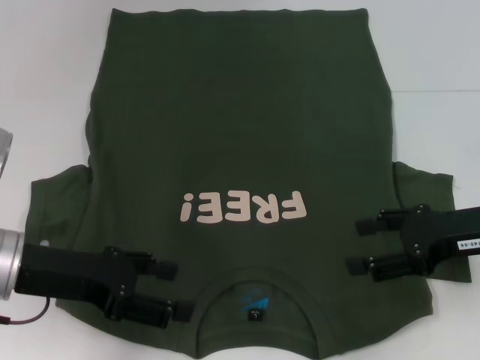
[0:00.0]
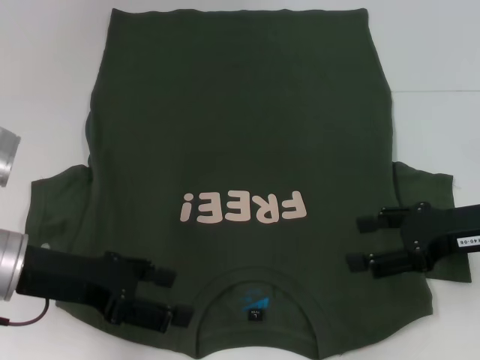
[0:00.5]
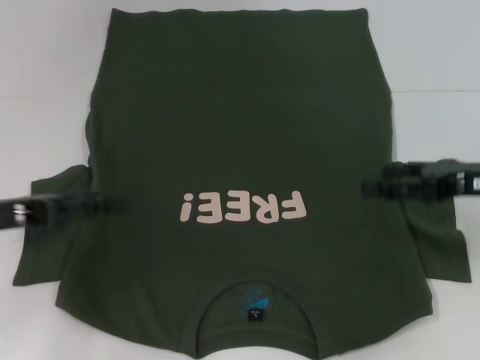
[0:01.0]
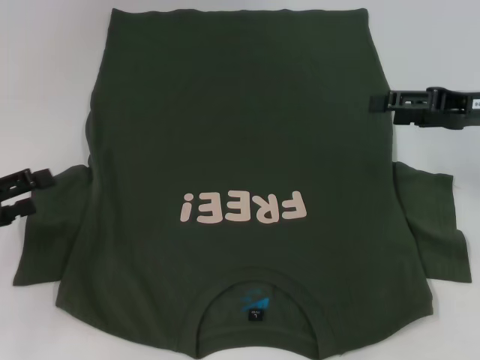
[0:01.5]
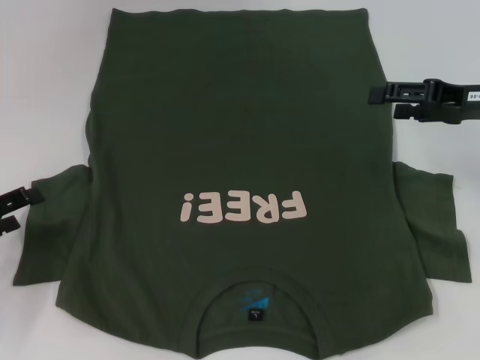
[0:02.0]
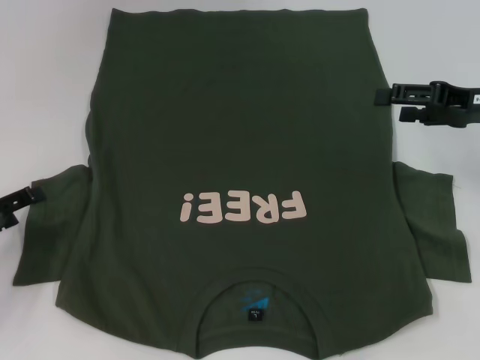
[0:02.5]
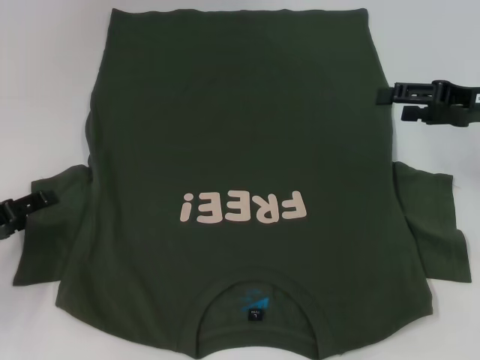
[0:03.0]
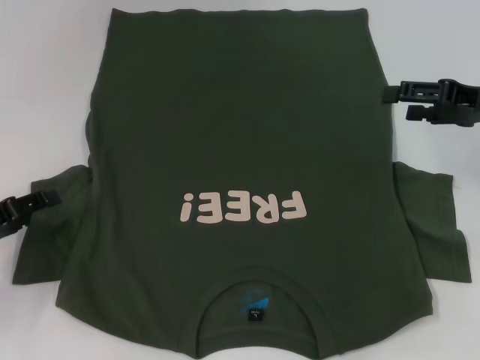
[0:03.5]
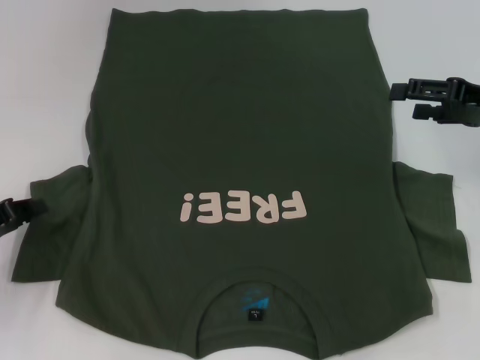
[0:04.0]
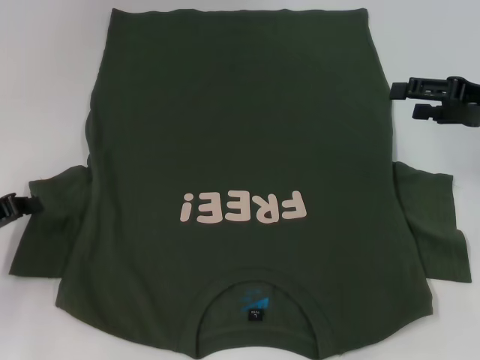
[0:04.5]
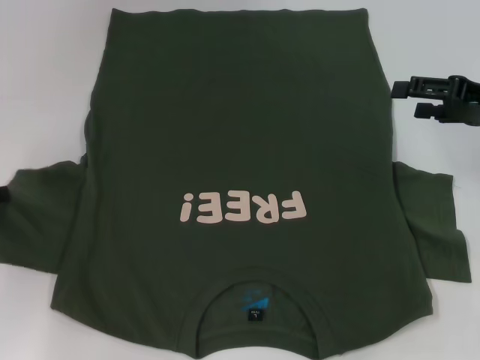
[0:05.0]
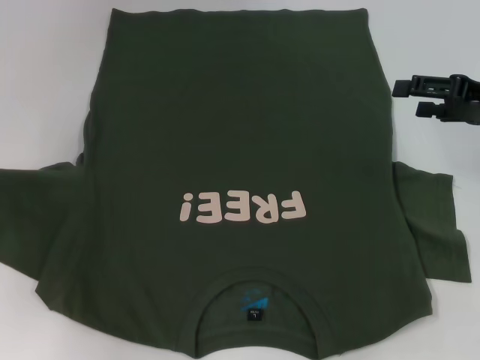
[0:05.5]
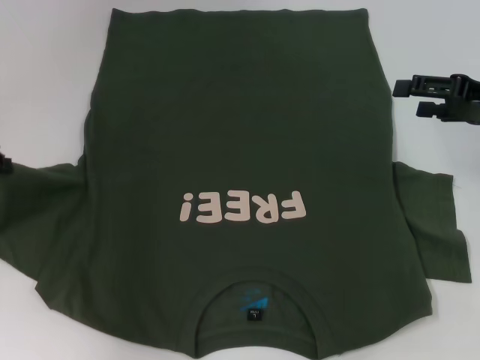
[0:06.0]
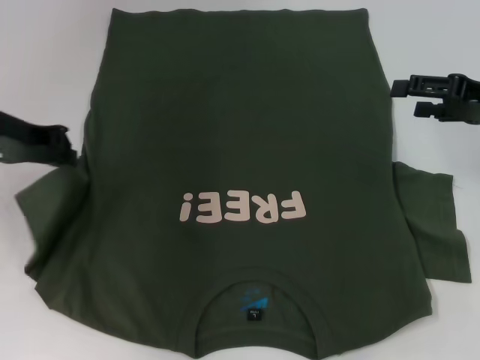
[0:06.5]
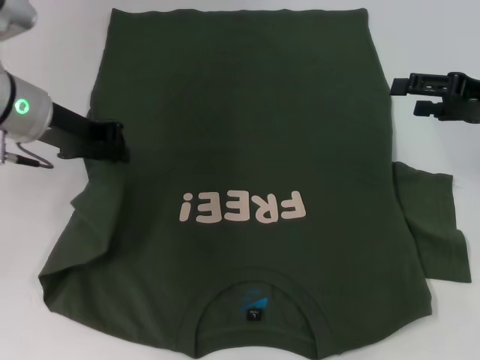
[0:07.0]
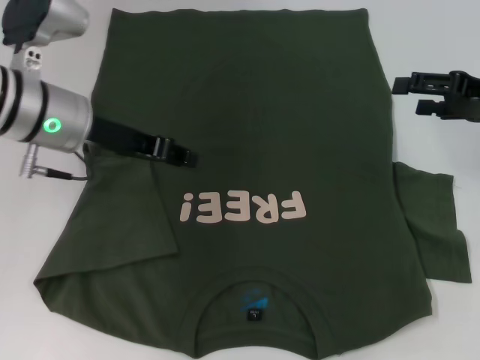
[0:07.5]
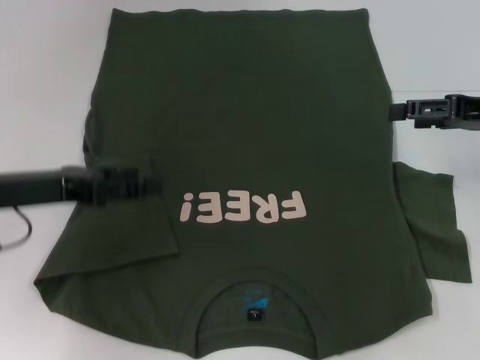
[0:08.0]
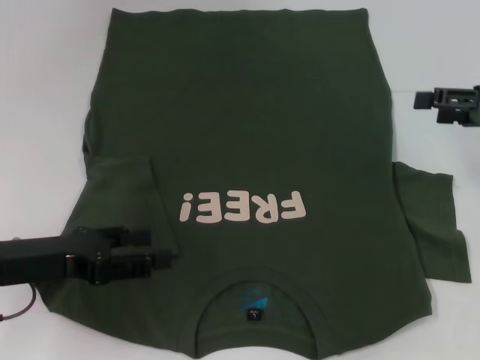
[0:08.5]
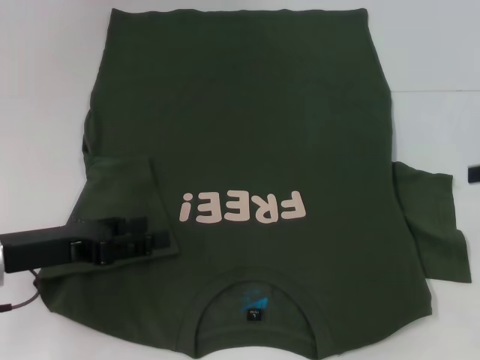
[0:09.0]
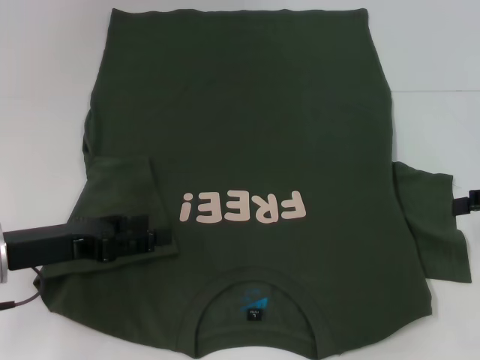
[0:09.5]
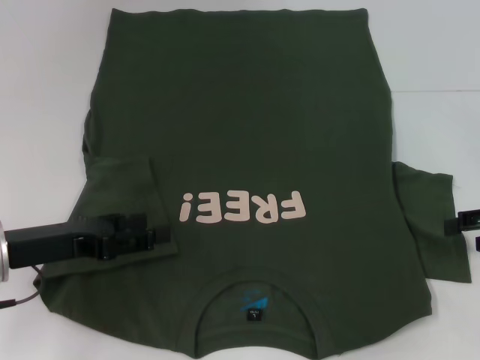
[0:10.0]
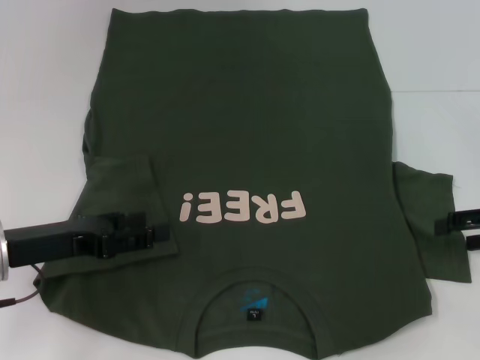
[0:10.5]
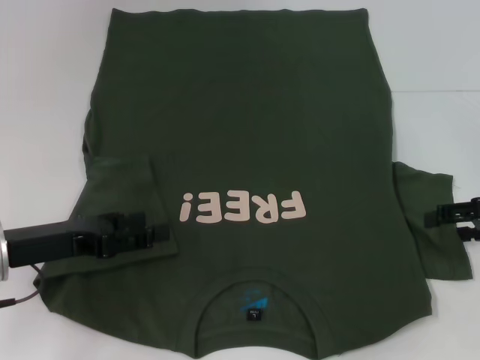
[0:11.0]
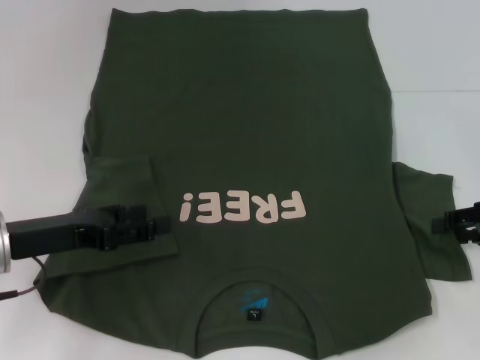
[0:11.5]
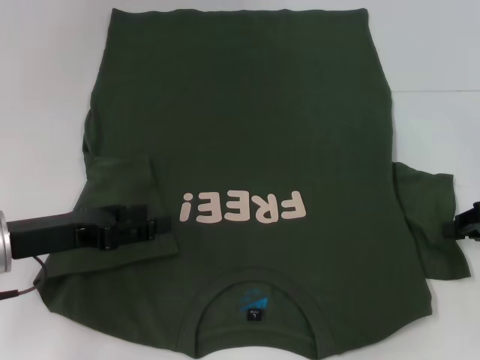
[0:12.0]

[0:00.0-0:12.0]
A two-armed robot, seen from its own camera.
Step, 0:00.0 to 0:07.0: Fold the bottom left sleeve with your left hand.
0:00.0 to 0:02.0: The right gripper heads forward, covering about 10 cm; the left gripper moves to the left, about 10 cm.
0:02.0 to 0:04.0: The left gripper closes its fingers.
0:04.0 to 0:06.0: The left gripper shifts some 10 cm upward and forward, and closes its fingers.
0:06.0 to 0:08.0: The left gripper shifts about 5 cm to the right, and opens.
0:08.0 to 0:10.0: The right gripper goes about 10 cm backward, downward and to the right; the left gripper shifts by roughly 5 cm.

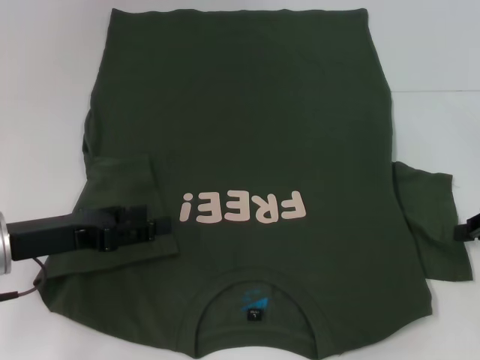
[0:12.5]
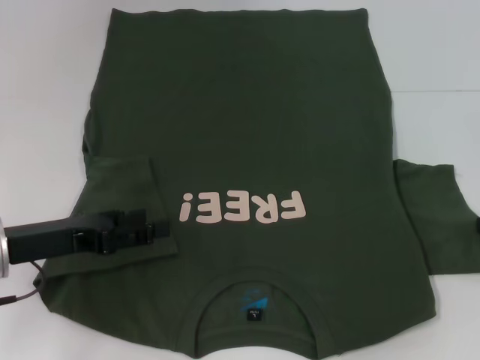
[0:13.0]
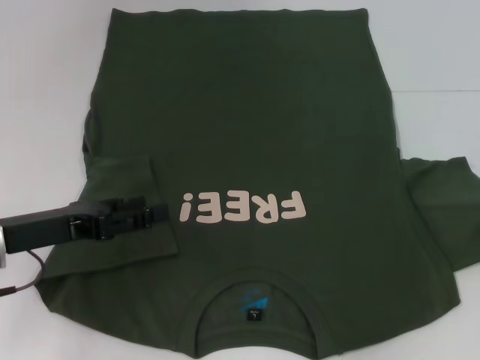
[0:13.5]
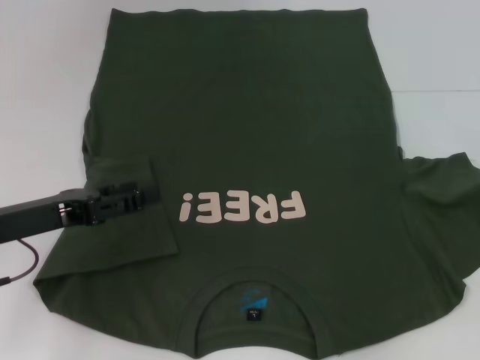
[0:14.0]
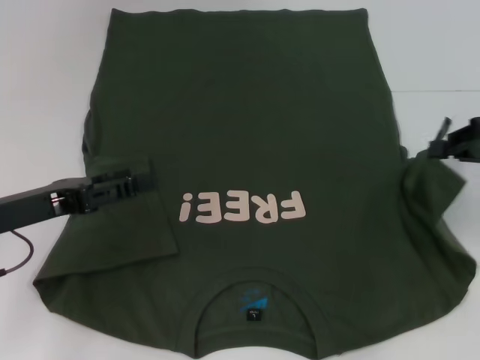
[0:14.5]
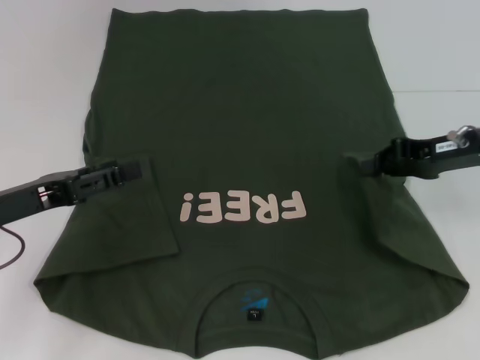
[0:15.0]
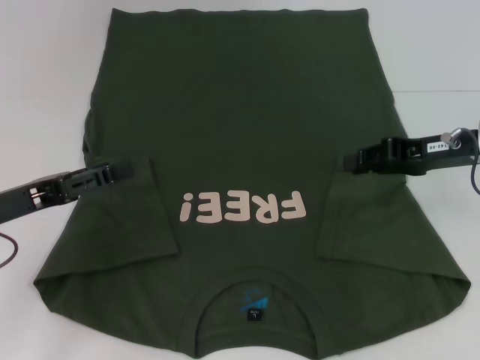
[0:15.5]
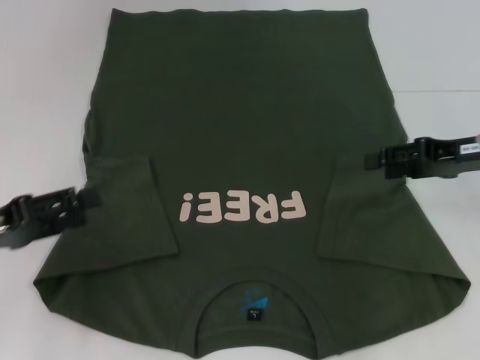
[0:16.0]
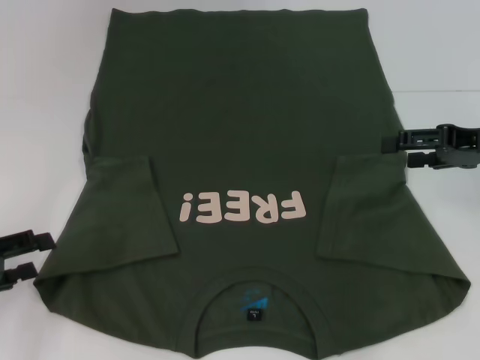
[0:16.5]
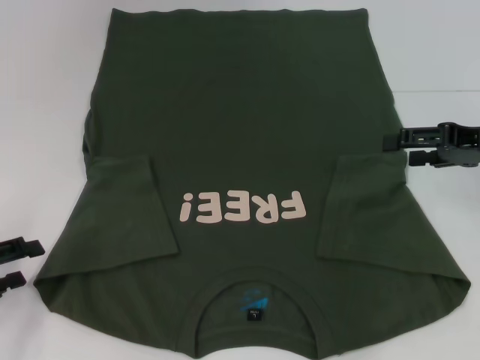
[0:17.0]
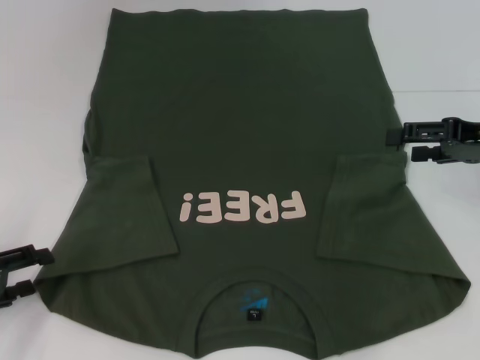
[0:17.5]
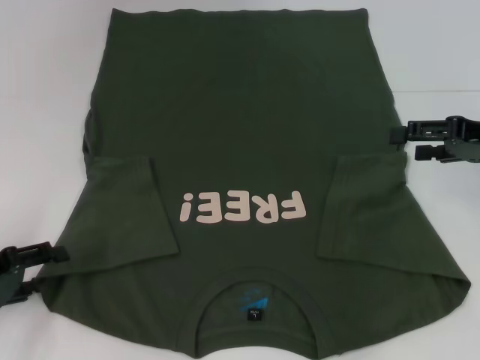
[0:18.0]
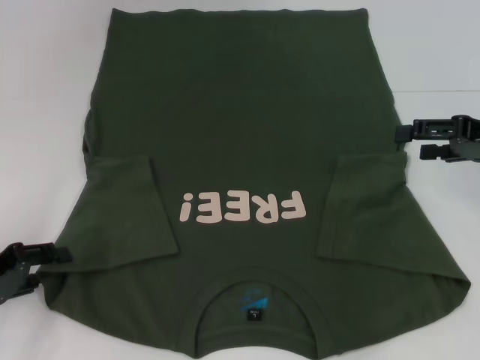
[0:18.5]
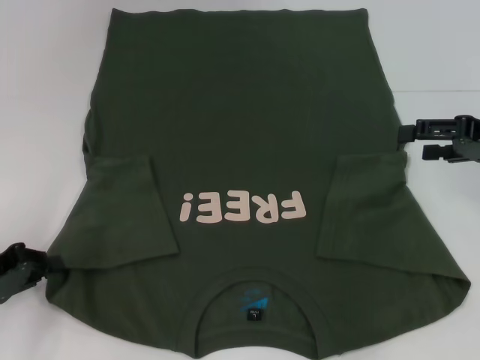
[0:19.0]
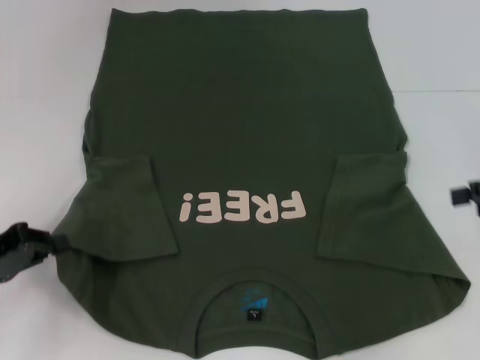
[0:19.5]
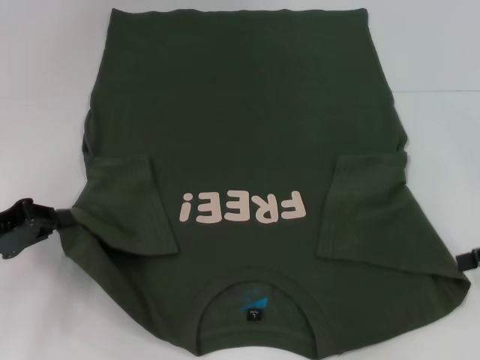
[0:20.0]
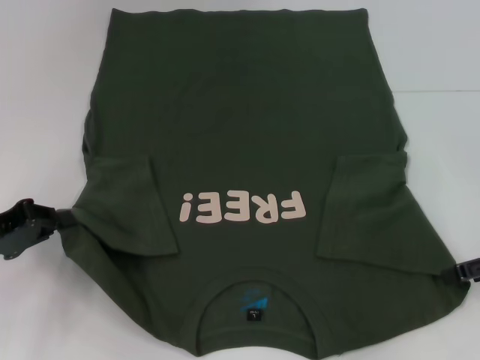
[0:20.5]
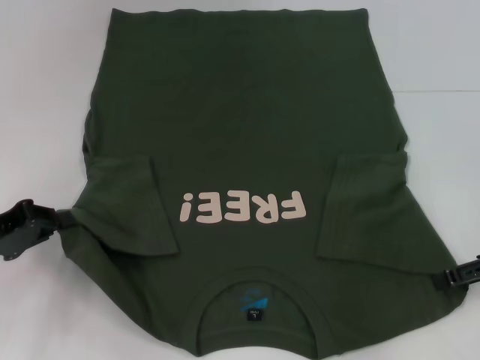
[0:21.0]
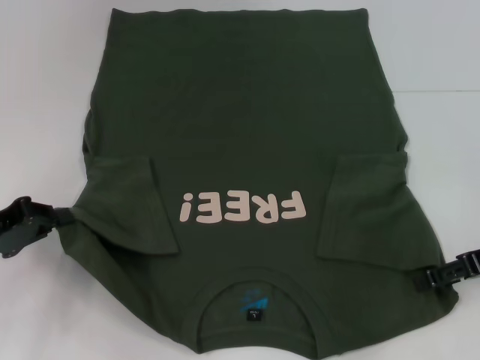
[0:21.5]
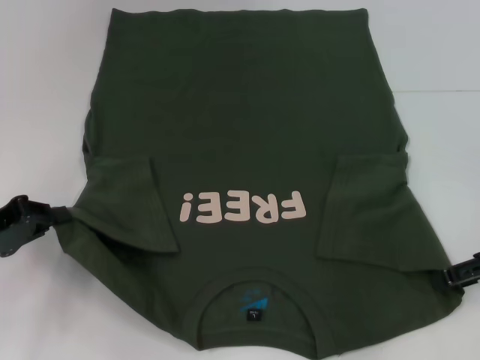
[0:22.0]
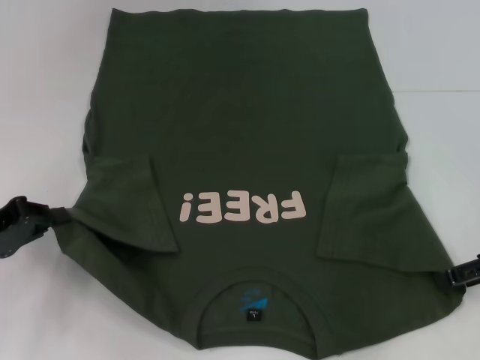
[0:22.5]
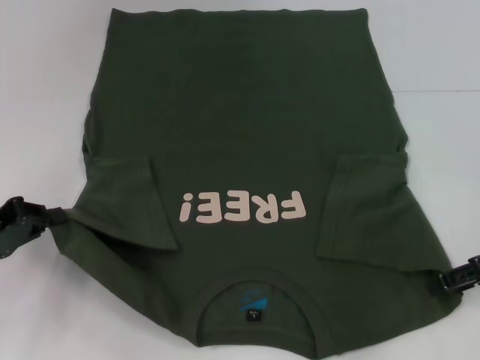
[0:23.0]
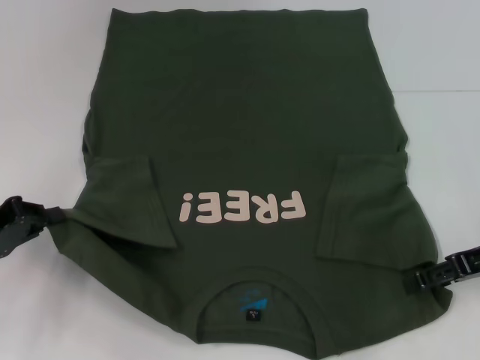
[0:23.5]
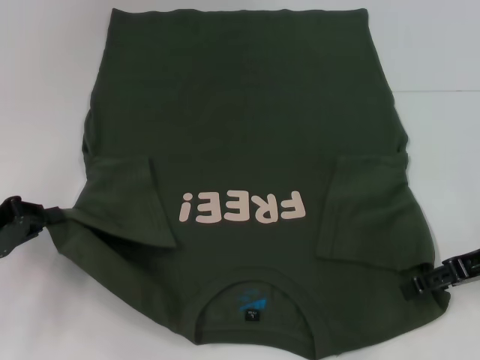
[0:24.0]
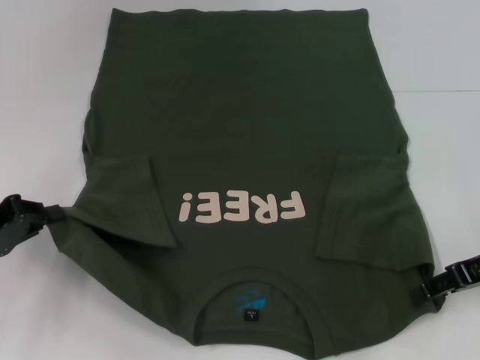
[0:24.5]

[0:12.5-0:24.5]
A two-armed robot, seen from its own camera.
Step, 0:12.5 to 0:15.0: Fold the bottom right sleeve with your right hand.
Step, 0:15.5 to 0:19.0: Grab the bottom left corner with your left hand.
0:12.5 to 0:14.5: The right gripper heads upward, covering approximately 5 cm.
0:14.5 to 0:16.5: The left gripper goes about 10 cm to the left. Meanwhile the right gripper opens its fingers.
0:16.5 to 0:18.5: There are only small adjustments of the grippers.
0:18.5 to 0:20.5: The left gripper closes its fingers; the right gripper is displaced backward by some 5 cm.
0:20.5 to 0:24.5: The grippers move only a little.

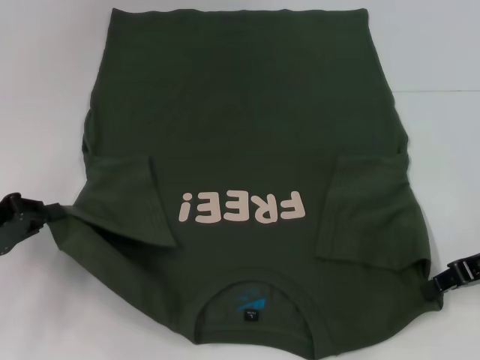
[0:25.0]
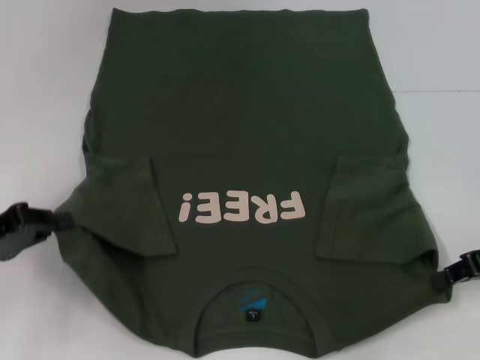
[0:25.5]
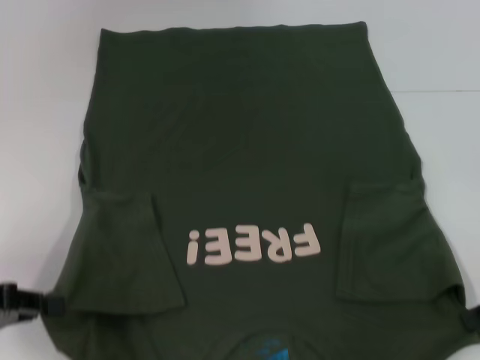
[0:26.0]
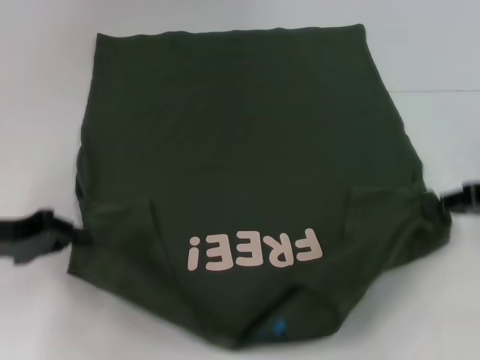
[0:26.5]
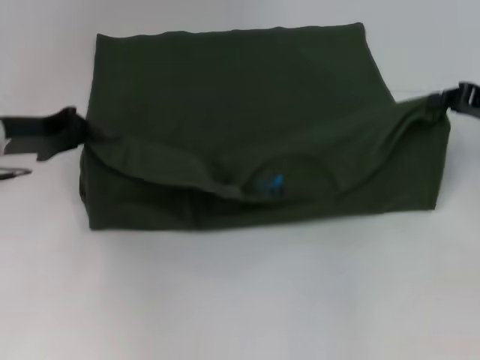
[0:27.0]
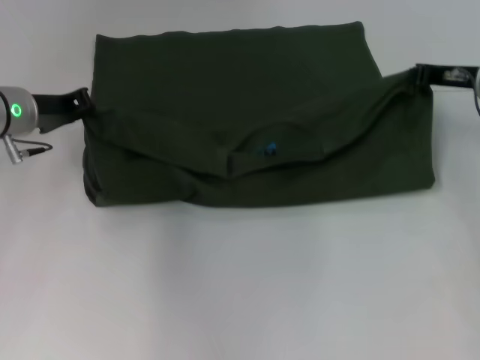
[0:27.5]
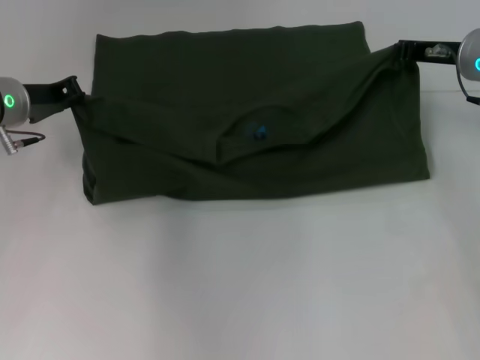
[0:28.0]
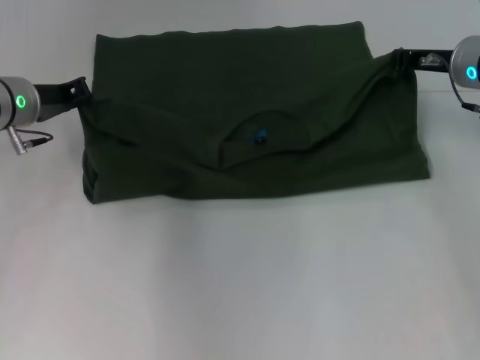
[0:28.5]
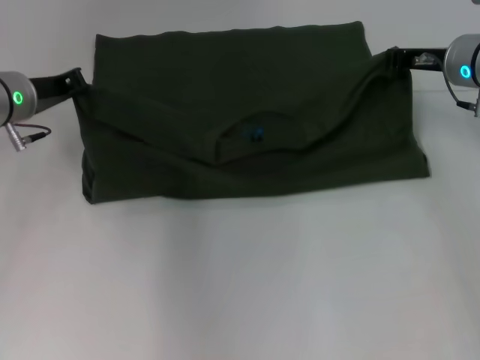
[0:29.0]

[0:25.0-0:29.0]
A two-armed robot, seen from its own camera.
0:25.0 to 0:27.0: The left gripper moves forward, approximately 10 cm. Meanwhile the right gripper moves forward, approximately 5 cm.
0:27.0 to 0:29.0: The left gripper moves approximately 5 cm, while the right gripper shifts roughly 10 cm to the left and forward.
